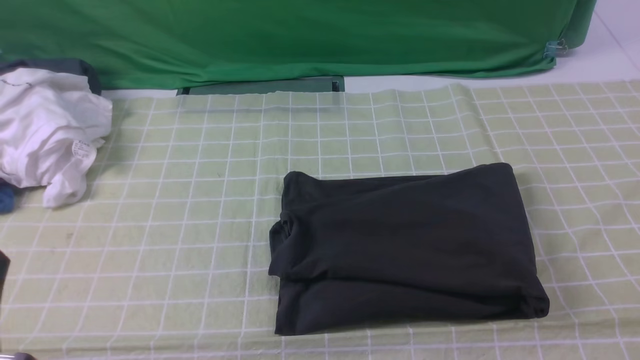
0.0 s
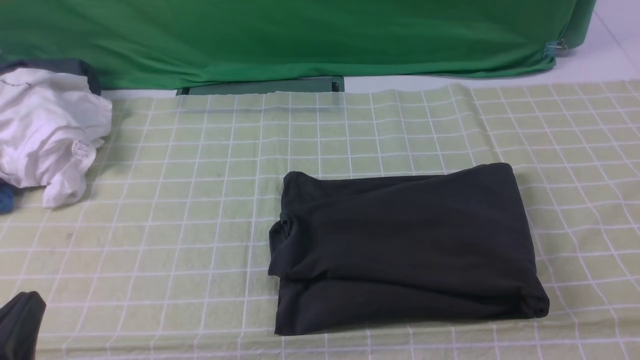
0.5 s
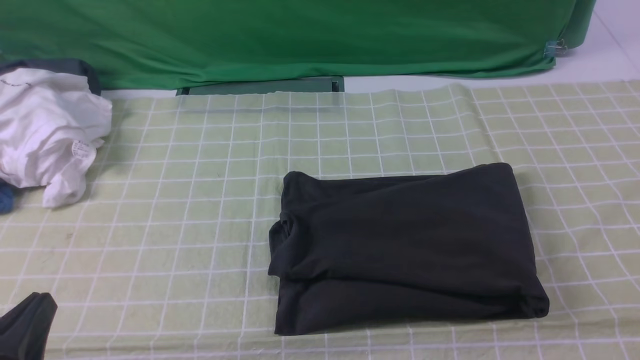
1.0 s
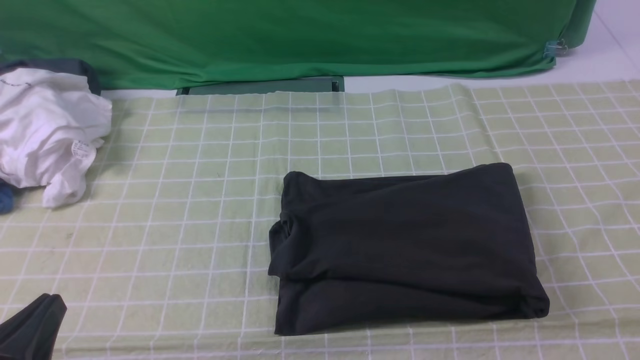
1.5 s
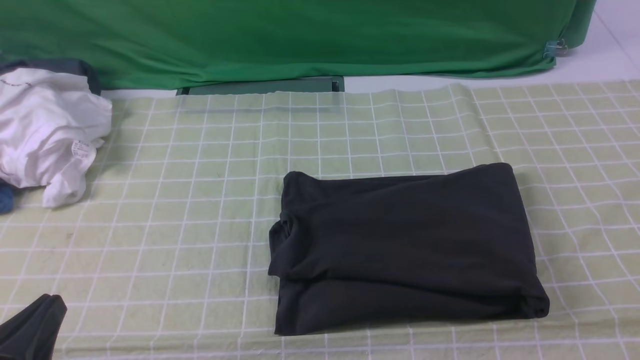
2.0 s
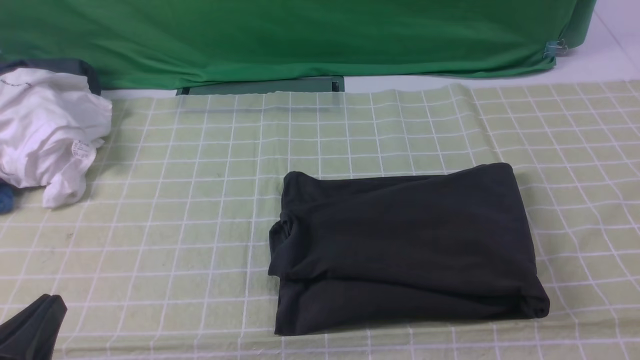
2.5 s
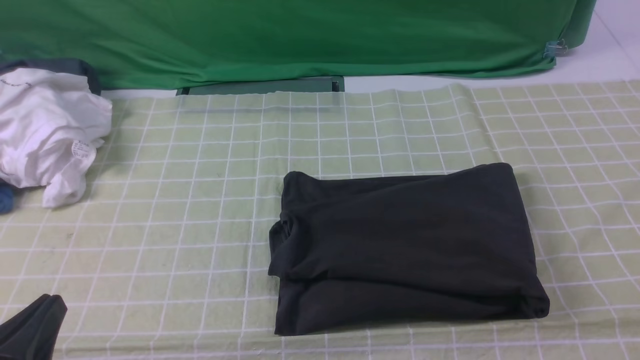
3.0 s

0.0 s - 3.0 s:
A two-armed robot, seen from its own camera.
0.0 s - 1.5 s: The grippers make only small movements.
1.5 s - 3.0 s: Both grippers stay put.
